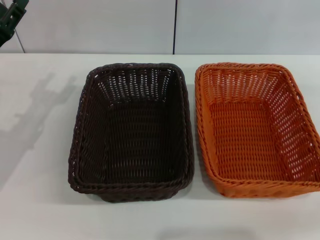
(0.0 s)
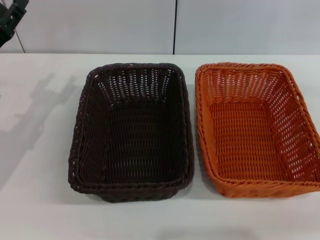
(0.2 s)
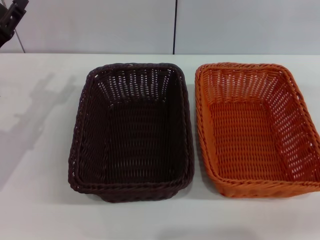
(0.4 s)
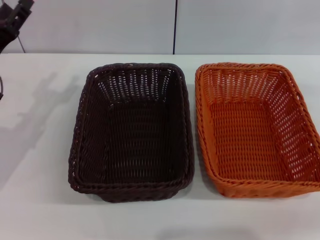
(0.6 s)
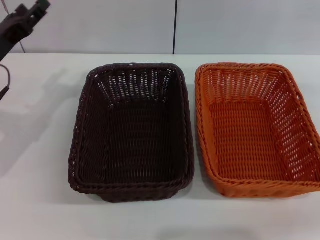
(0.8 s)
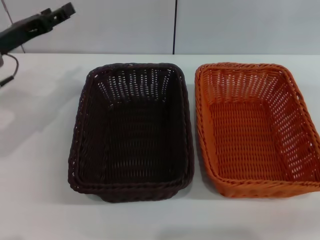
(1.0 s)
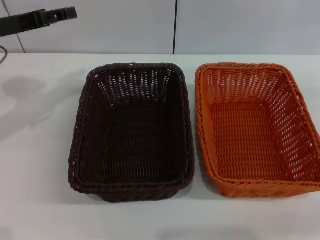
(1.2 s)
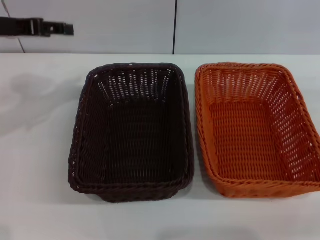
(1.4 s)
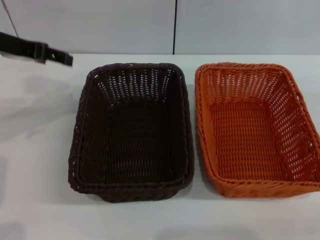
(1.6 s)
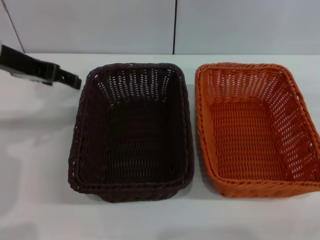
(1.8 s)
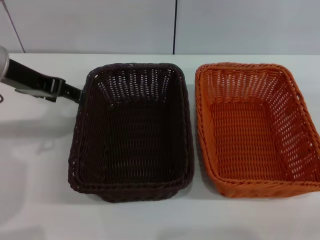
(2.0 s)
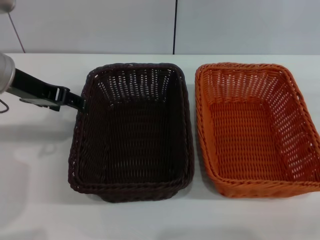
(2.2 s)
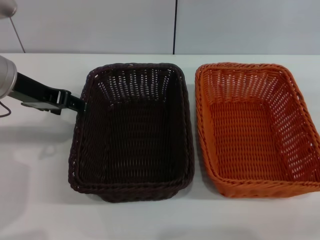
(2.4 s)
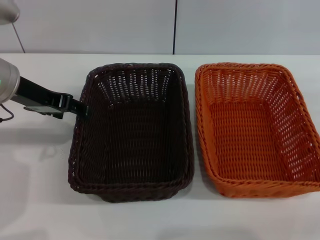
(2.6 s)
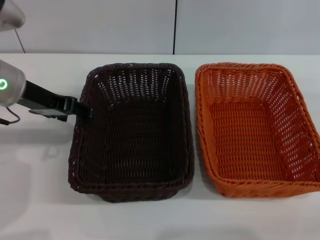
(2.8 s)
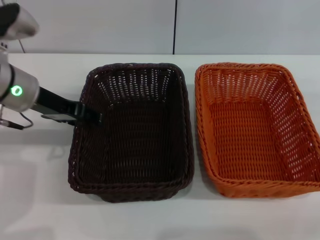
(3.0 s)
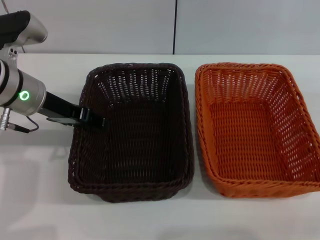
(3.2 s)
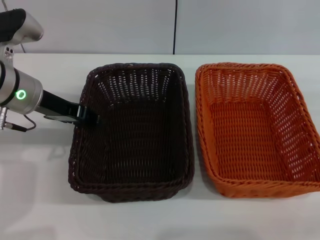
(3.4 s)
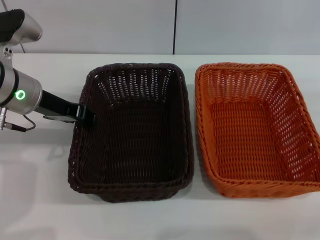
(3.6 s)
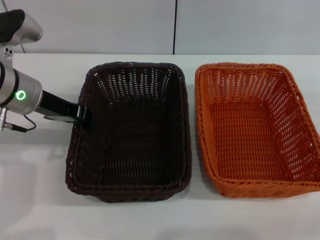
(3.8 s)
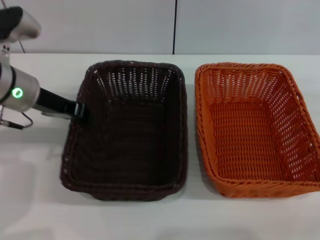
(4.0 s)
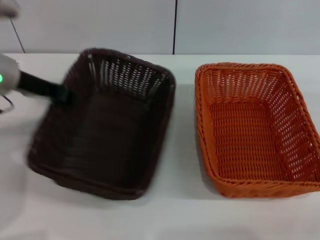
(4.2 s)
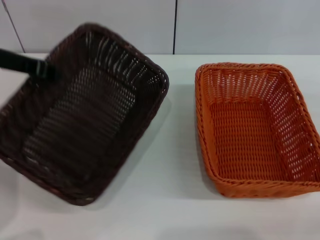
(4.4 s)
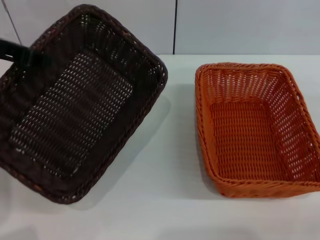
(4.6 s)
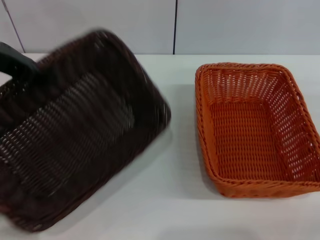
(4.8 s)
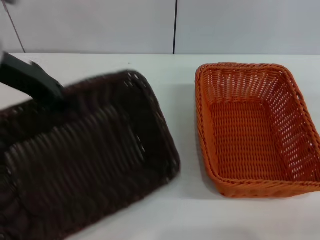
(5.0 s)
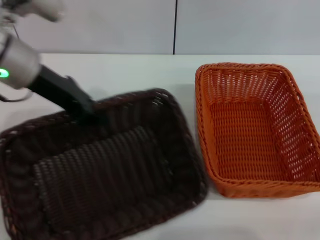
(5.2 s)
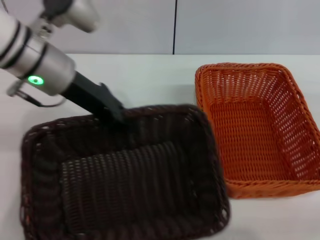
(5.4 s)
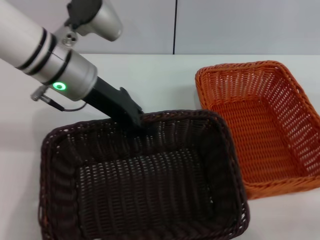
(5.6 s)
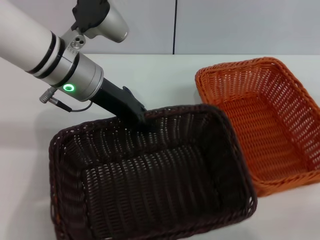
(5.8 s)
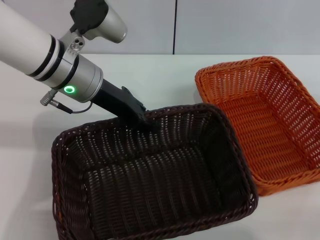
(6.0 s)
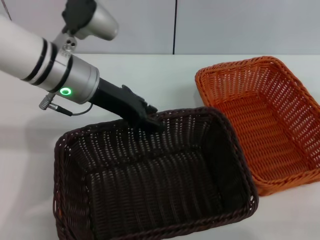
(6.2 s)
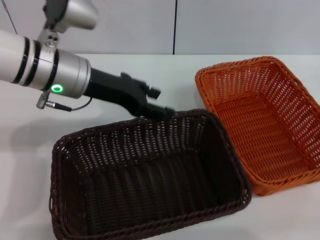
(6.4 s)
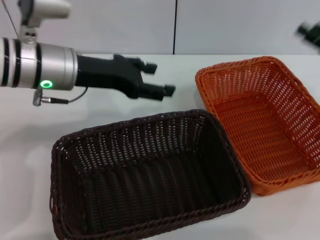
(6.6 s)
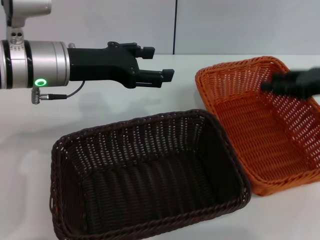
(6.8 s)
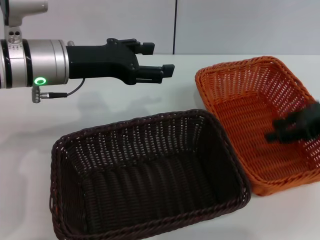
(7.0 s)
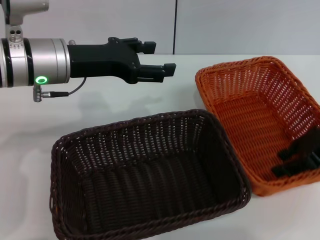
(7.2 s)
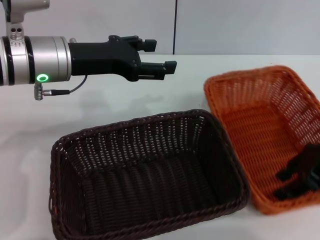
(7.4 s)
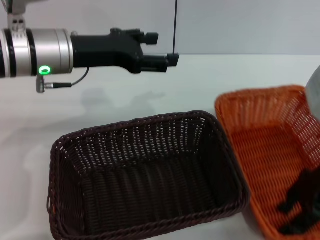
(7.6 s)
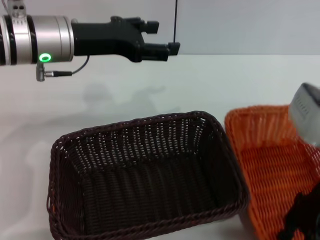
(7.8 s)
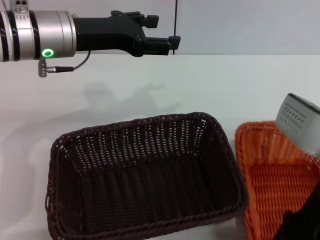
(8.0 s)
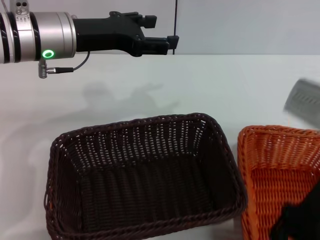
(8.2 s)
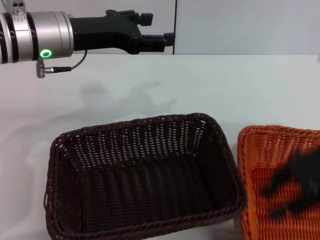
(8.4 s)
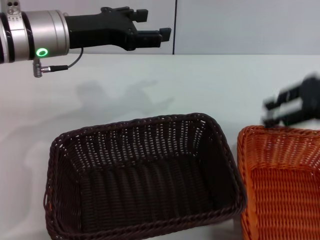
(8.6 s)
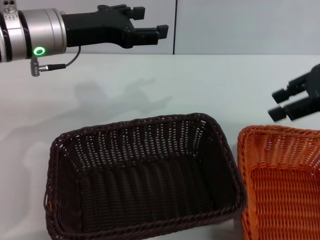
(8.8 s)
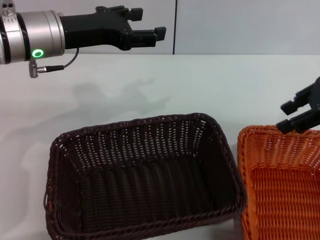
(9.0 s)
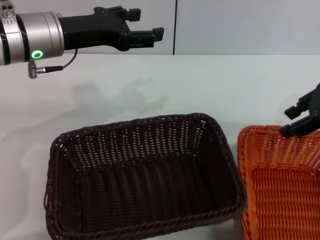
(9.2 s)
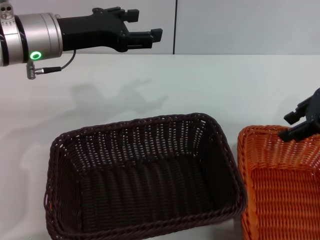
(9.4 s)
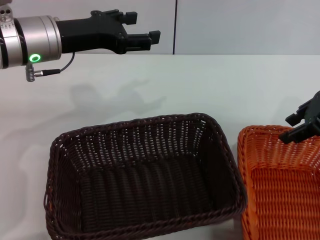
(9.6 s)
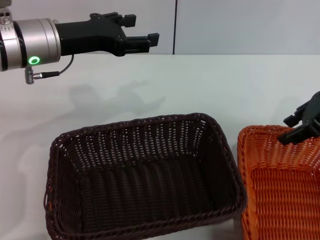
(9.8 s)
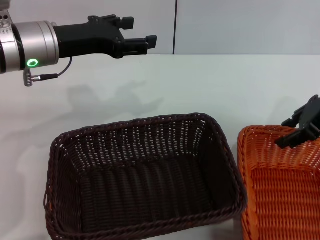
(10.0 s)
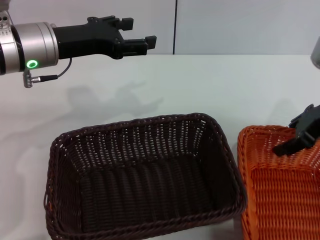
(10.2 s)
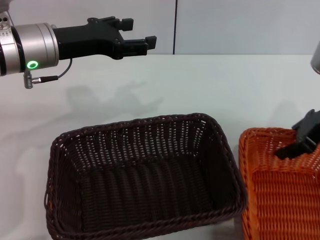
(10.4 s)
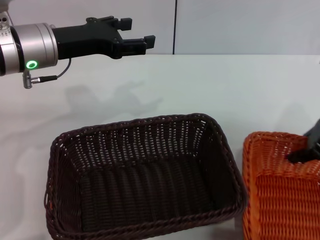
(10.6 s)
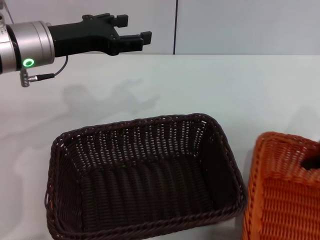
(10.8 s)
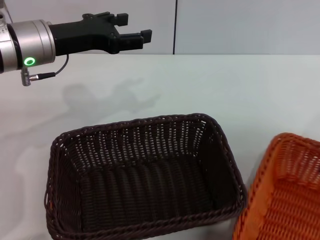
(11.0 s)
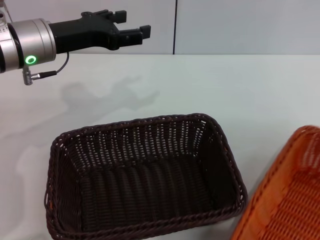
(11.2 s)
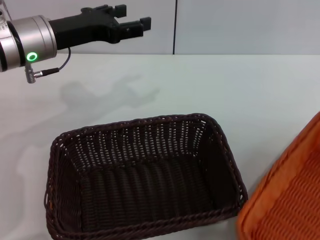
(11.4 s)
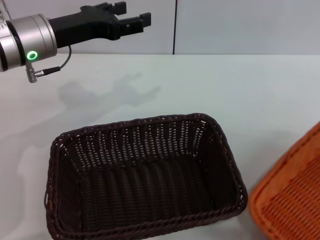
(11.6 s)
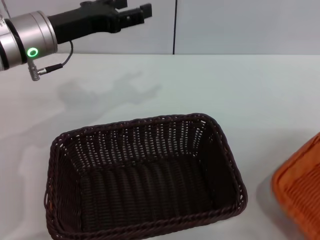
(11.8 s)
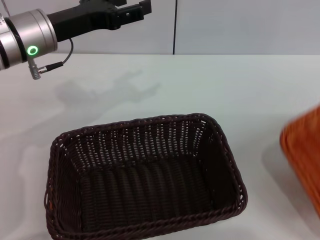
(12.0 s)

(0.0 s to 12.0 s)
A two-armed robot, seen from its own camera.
Step, 0.0 s - 4.2 s: Pick up the dark basket with the left gripper.
Step, 4.4 s - 6.4 s: Place the dark basket in the center of view with the left gripper.
Step, 6.6 s - 10.4 s: Pick up the light basket with the right gripper.
0.0 s - 1.6 s: The left gripper is displaced upward by about 15 cm.
1.6 s - 3.0 s: The left gripper shifts roughly 5 cm downward.
3.0 s - 4.4 s: The left gripper is displaced upward by approximately 5 cm, and closes up.
4.4 s - 6.0 s: The left gripper goes about 10 cm to the right.
6.0 s - 7.6 s: The right gripper heads to the left and upward, covering about 15 cm. Meanwhile the left gripper opens.
7.6 s - 9.0 s: The right gripper moves upward, roughly 10 cm.
9.0 s - 10.4 s: The right gripper travels downward by about 5 cm.
10.4 s - 12.0 s: The right gripper is displaced to the right and backward by approximately 25 cm, and closes.

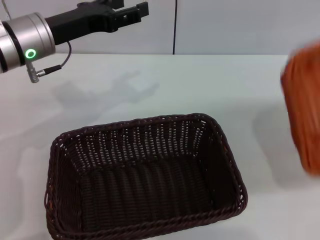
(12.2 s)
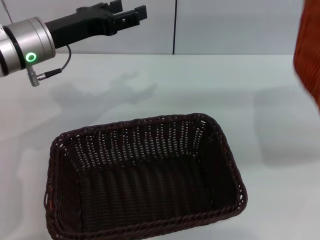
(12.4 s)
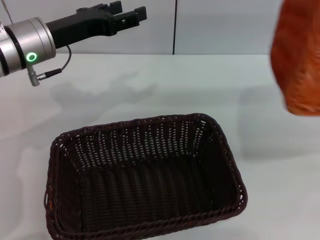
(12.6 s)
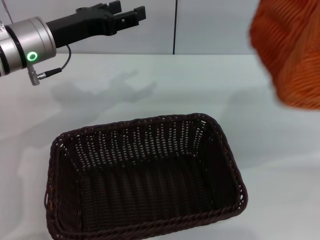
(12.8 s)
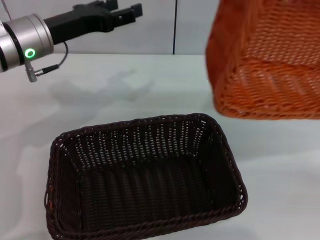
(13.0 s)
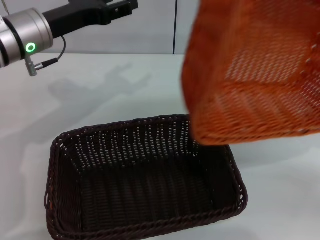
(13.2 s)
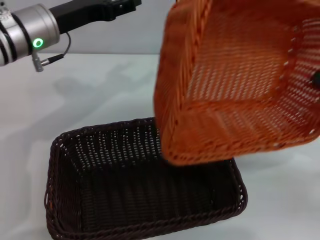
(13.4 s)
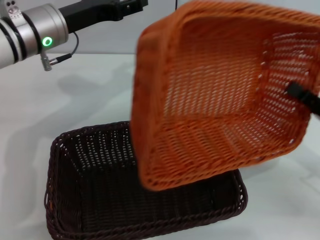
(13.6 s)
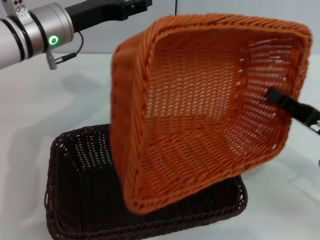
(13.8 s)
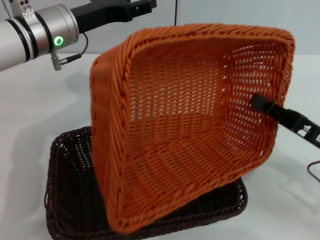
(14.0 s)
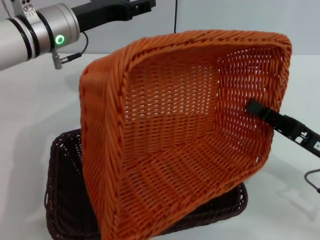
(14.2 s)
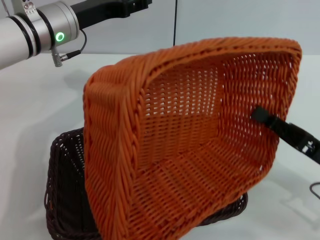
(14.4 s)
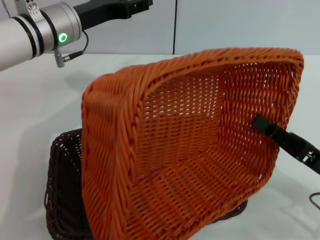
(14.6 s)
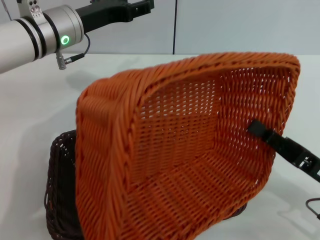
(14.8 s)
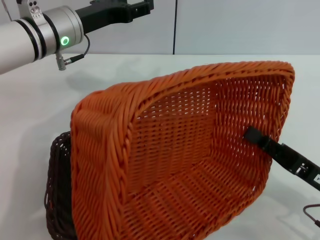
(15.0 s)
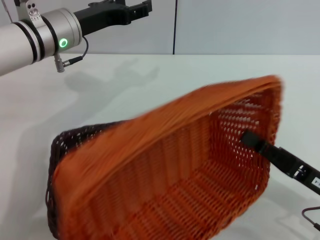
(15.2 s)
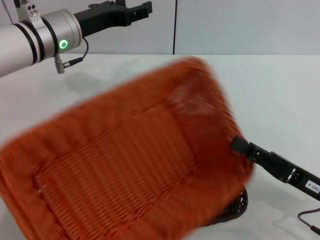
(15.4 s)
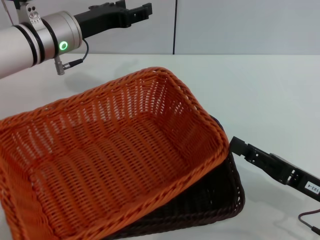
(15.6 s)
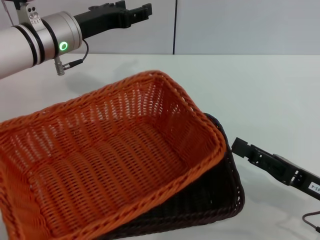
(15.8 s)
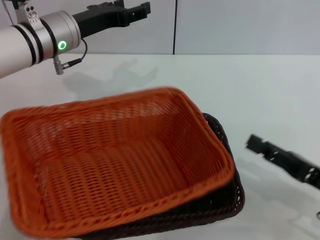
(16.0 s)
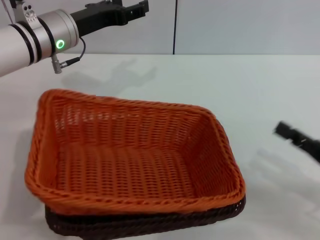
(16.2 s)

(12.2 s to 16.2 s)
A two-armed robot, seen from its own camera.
Step, 12.2 s - 16.2 s: Place the light basket on the dark basket with the right gripper.
12.2 s - 13.6 s: The right gripper heads to the left and downward, covering approximately 25 cm.
13.6 s - 14.8 s: The right gripper moves roughly 5 cm.
14.8 s - 16.2 s: The right gripper opens its fingers.
